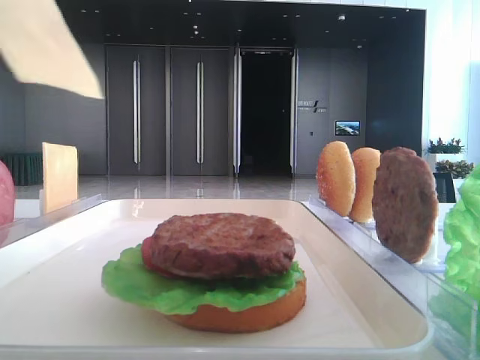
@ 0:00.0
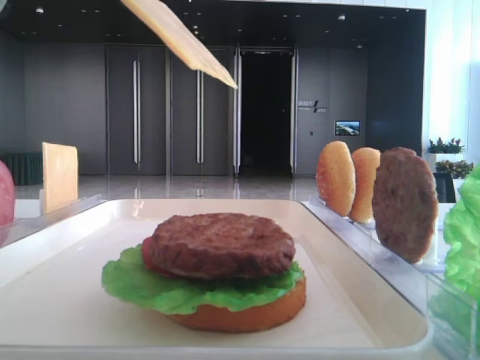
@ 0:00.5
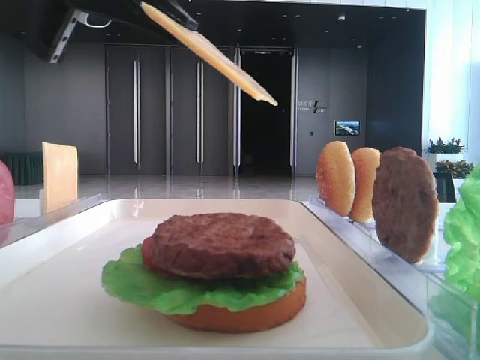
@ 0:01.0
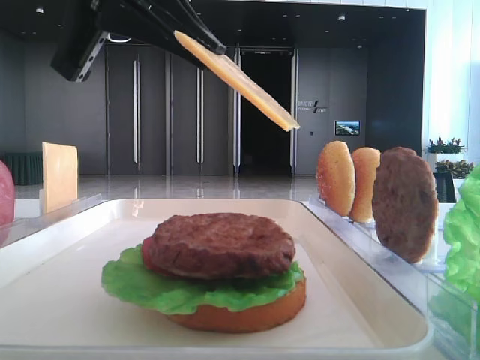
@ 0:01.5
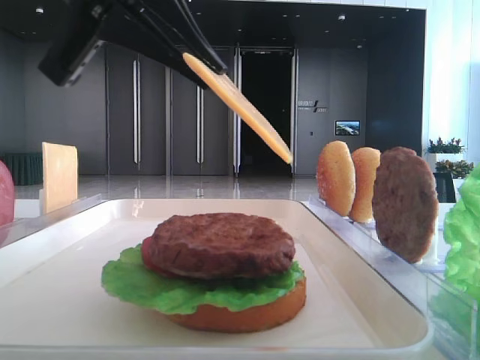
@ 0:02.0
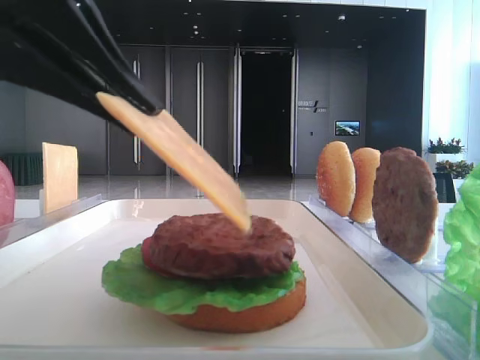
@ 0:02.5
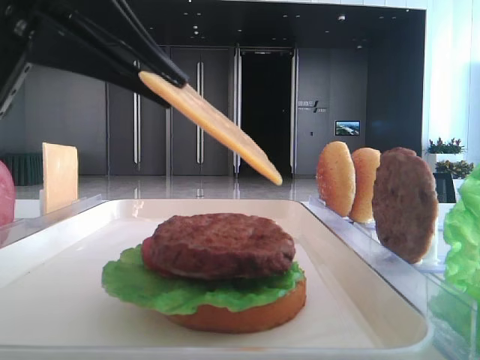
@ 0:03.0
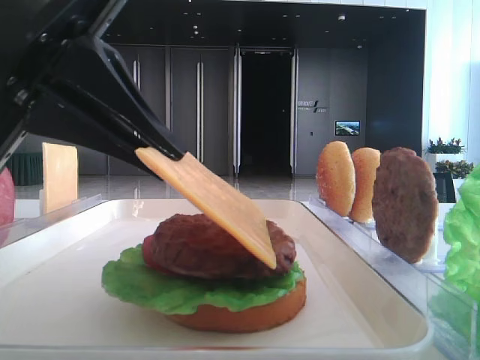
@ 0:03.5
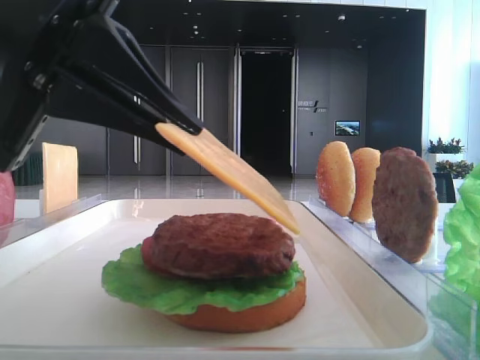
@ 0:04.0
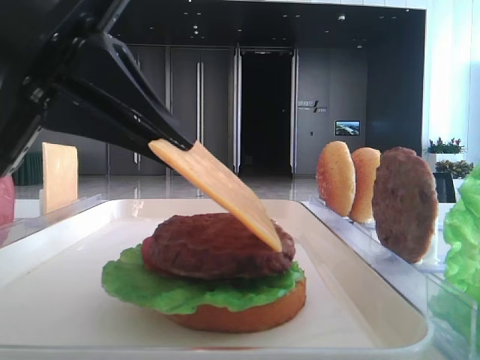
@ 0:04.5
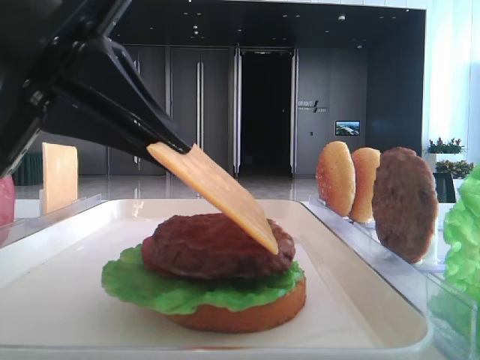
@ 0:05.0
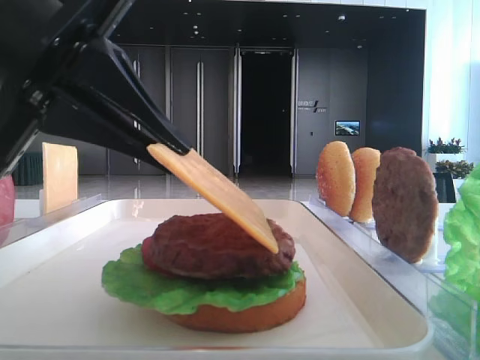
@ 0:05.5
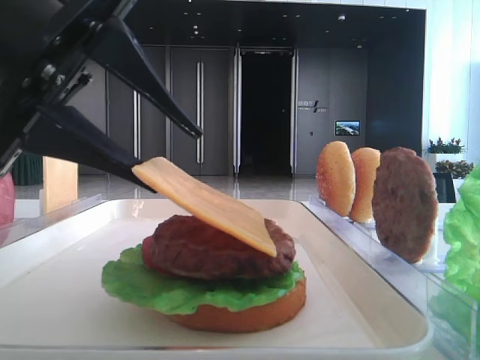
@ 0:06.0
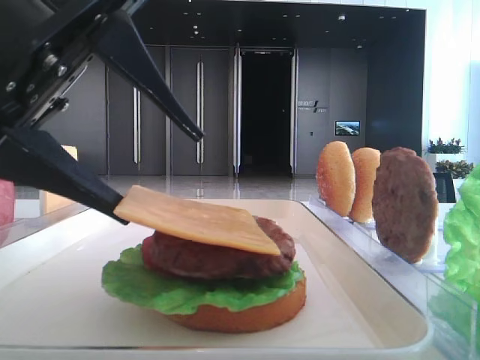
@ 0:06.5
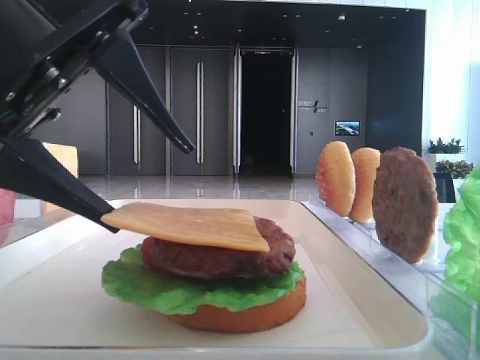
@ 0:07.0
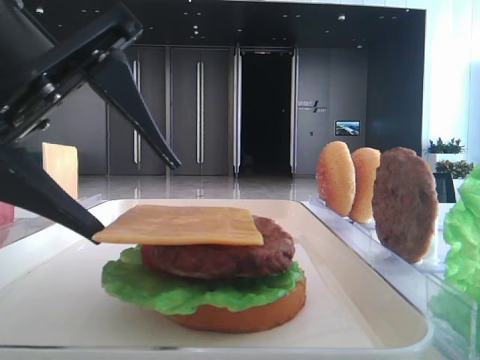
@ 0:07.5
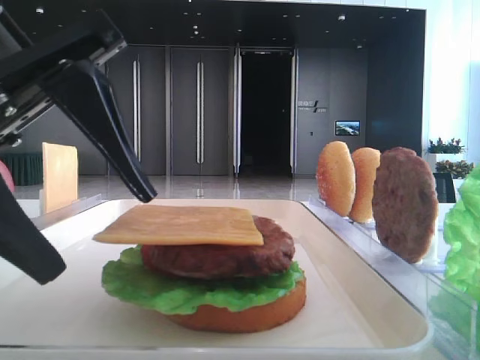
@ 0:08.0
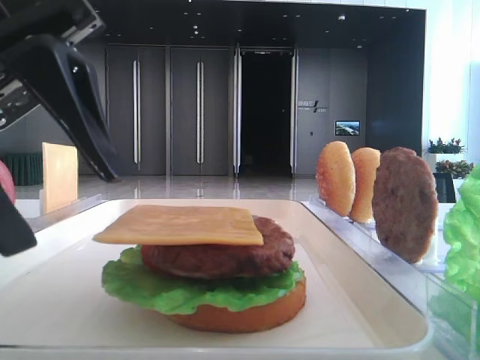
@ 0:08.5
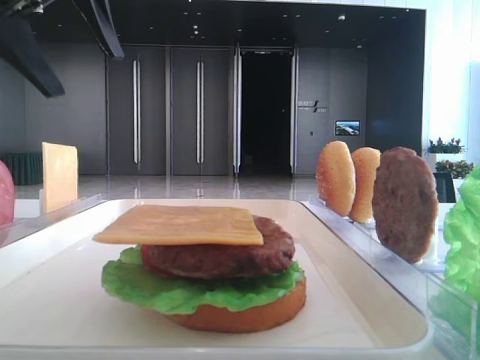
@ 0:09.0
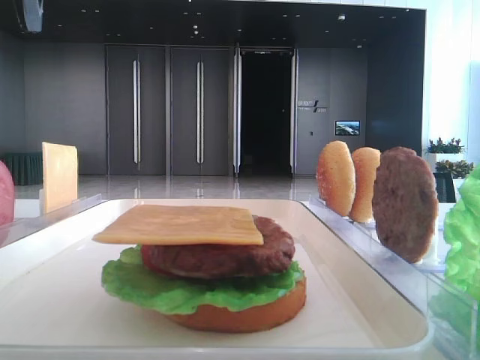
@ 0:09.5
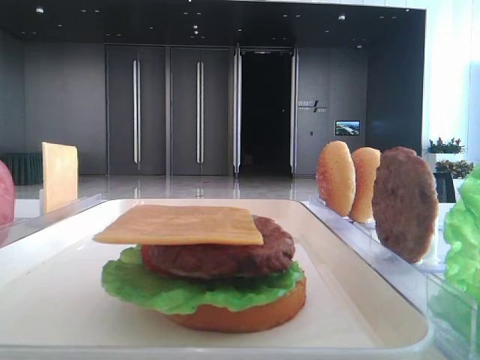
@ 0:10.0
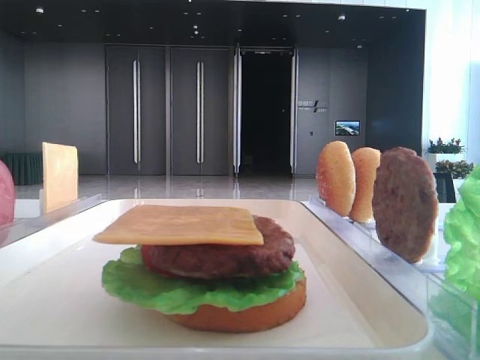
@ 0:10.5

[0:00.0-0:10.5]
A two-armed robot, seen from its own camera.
Step, 0:00.0 to 0:07.0: Place the cheese slice on the patty with the left hand.
0:00.0 to 0:02.0: The left gripper heads to the right and downward, covering about 10 cm.
0:02.0 to 0:04.0: The left gripper travels downward by approximately 5 cm.
0:04.0 to 0:06.5: The left gripper opens its fingers.
0:06.5 to 0:08.5: The grippers make only small movements.
0:08.5 to 0:10.5: The left gripper goes approximately 30 cm to the left, upward and forward.

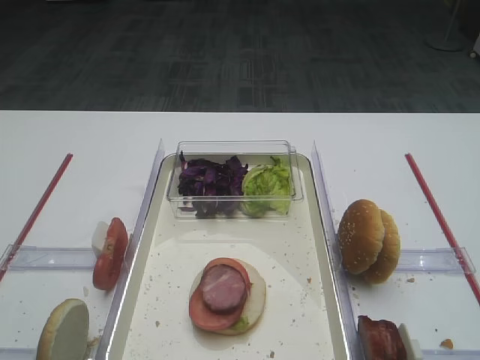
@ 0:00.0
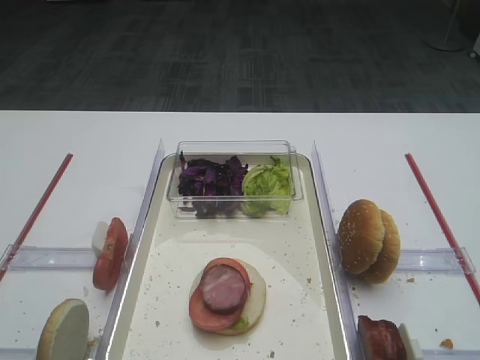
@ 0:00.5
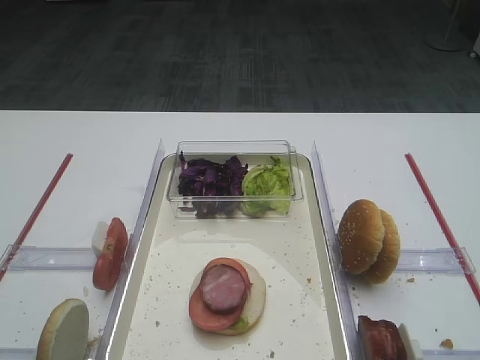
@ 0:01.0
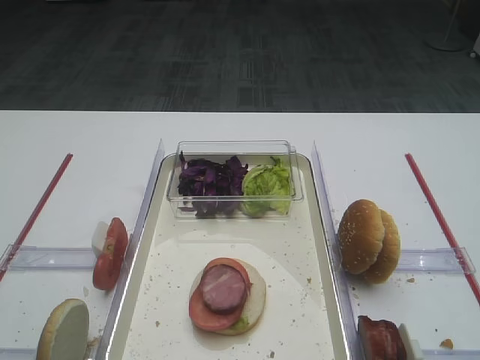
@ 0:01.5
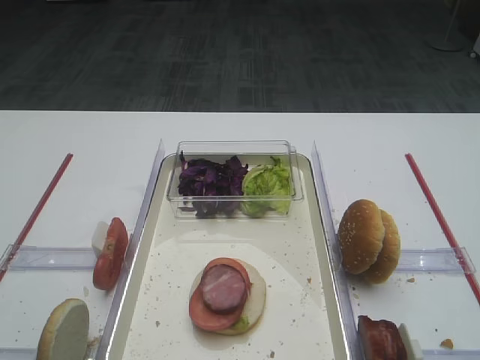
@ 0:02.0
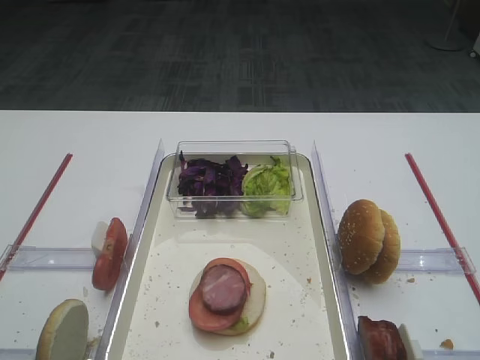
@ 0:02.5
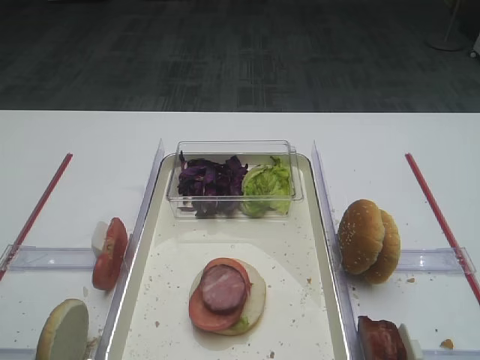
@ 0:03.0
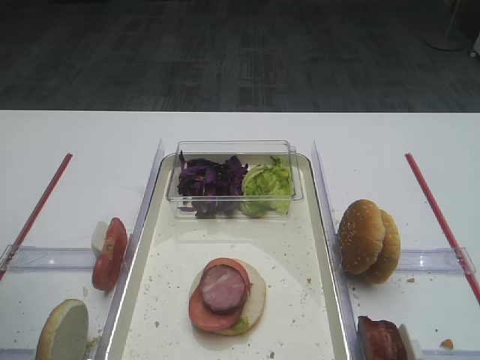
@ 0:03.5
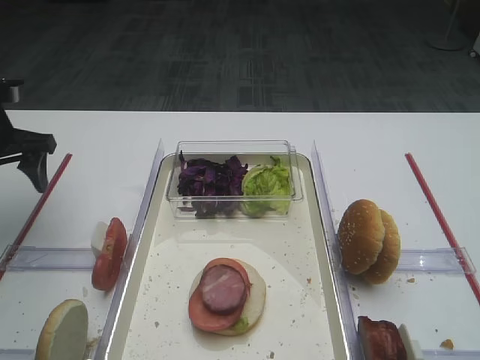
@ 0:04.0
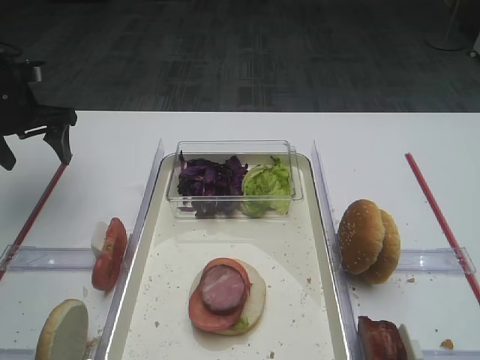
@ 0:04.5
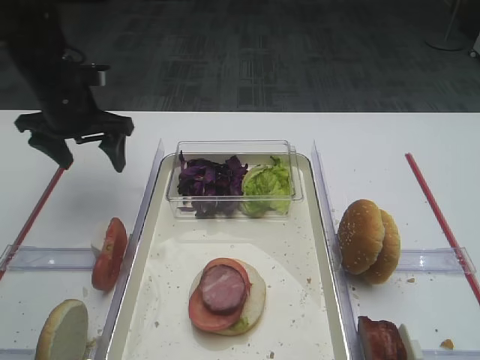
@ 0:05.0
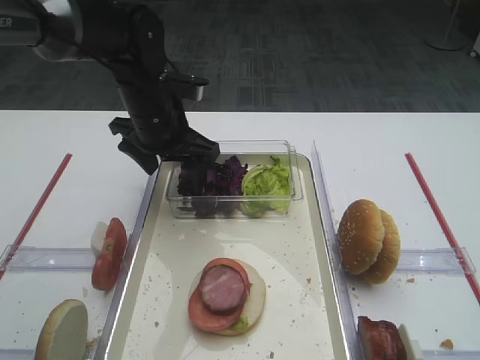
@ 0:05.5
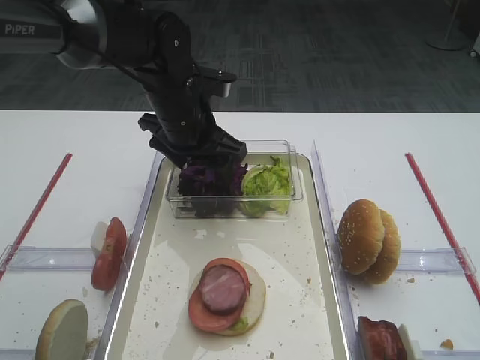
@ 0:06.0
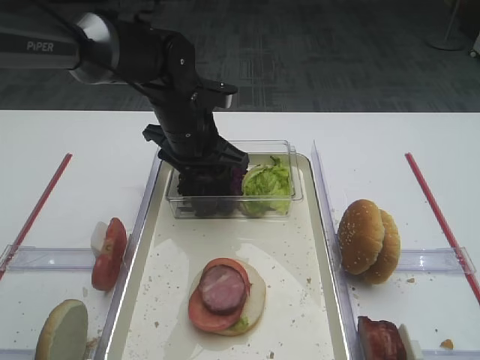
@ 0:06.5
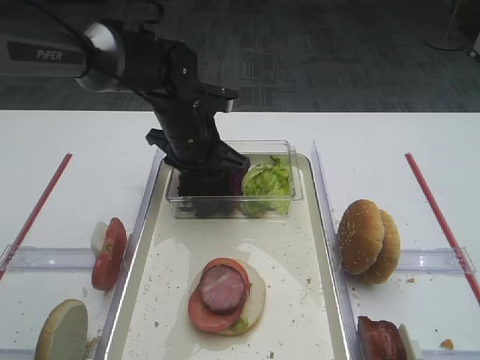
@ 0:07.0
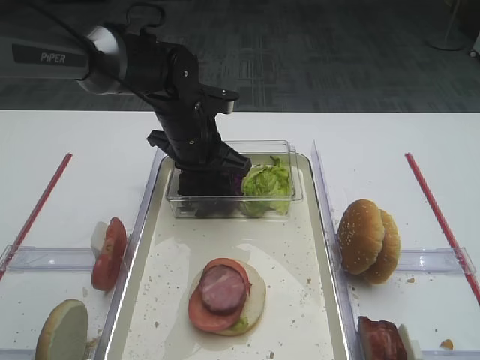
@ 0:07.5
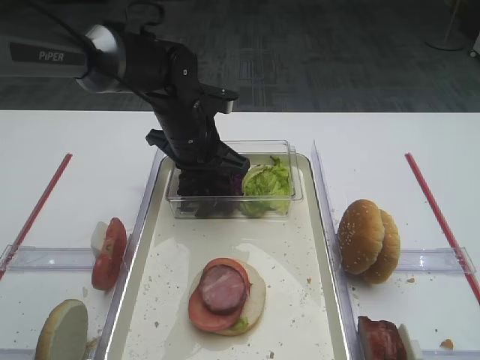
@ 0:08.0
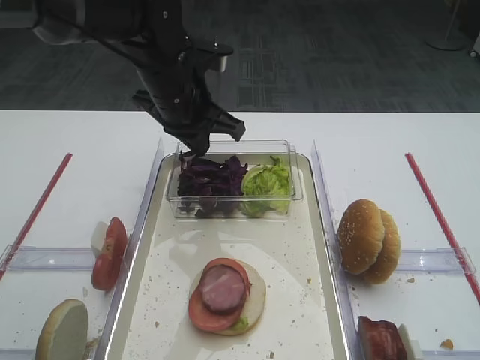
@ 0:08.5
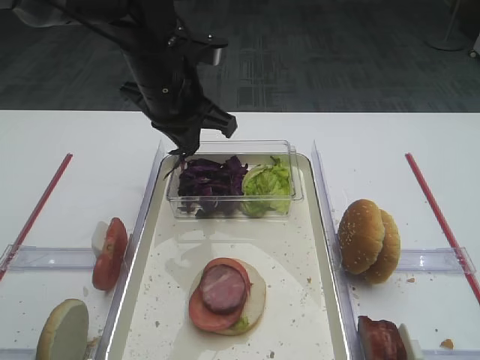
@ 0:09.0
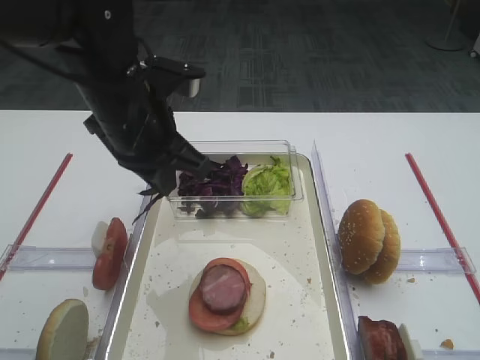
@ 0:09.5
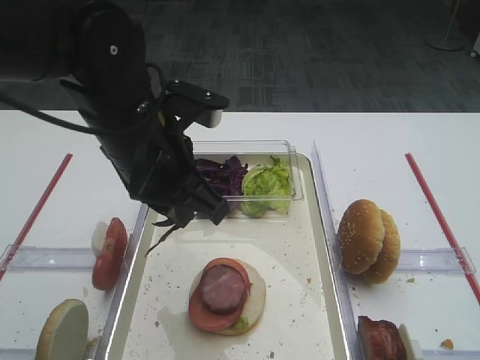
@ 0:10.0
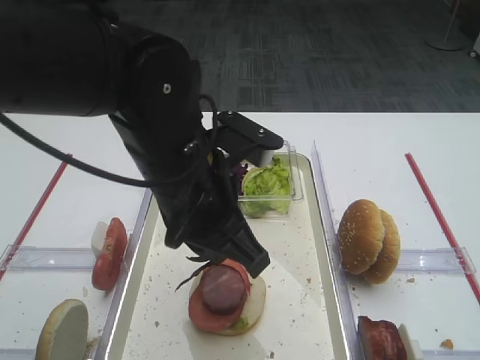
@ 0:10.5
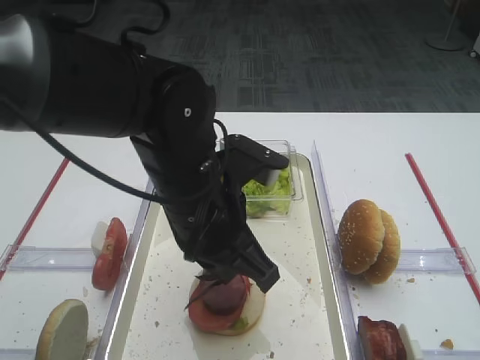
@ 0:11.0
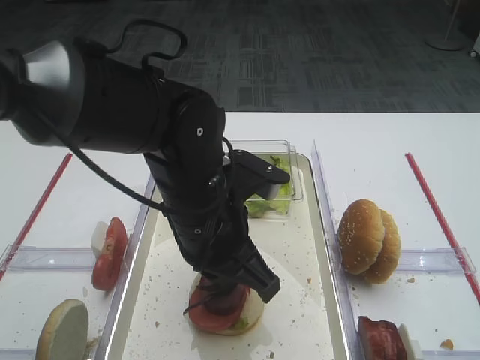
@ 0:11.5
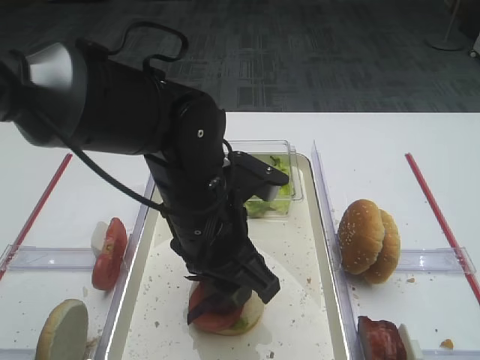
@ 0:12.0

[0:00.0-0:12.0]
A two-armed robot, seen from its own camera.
Step, 0:00.0 to 0:09.0: Pick up the purple cabbage with the left gripper.
0:02.0 to 0:04.0: The left gripper shifts approximately 35 cm forward.
0:04.0 to 0:06.0: The left gripper goes roughly 25 cm to the right.
0:06.0 to 0:08.0: The left gripper closes up.
0:08.0 to 0:10.0: The left gripper moves backward and upward, some 15 cm.
0:10.0 to 0:12.0: The left gripper moves to the right and downward, about 10 cm, and opens up.

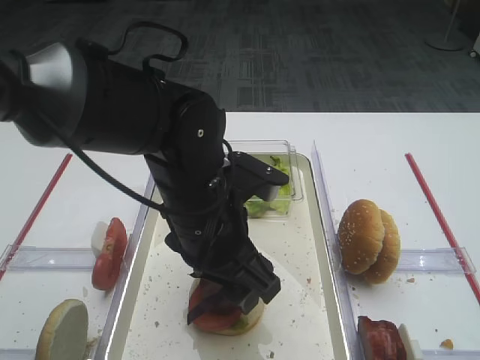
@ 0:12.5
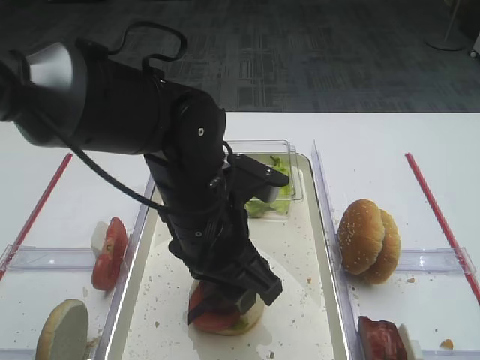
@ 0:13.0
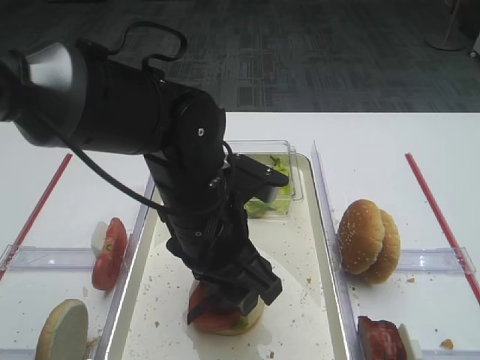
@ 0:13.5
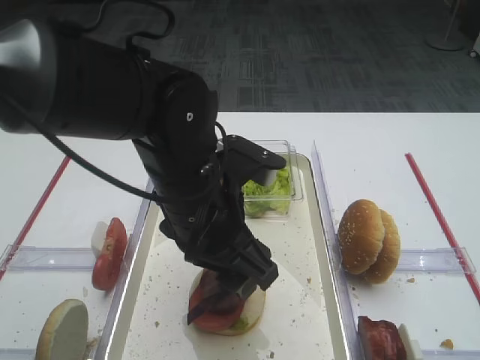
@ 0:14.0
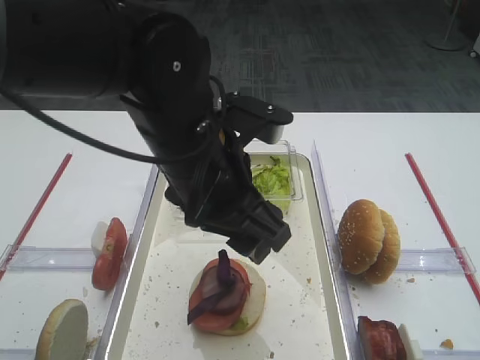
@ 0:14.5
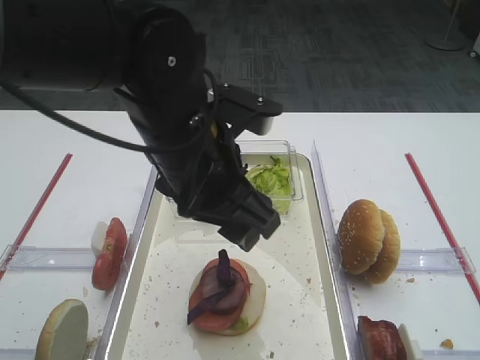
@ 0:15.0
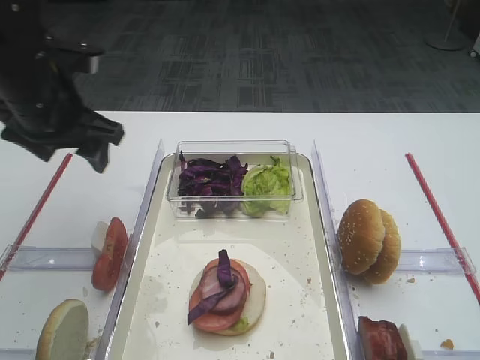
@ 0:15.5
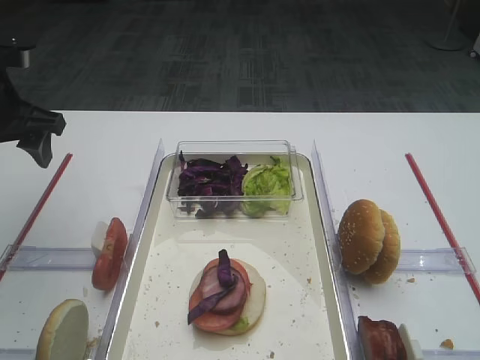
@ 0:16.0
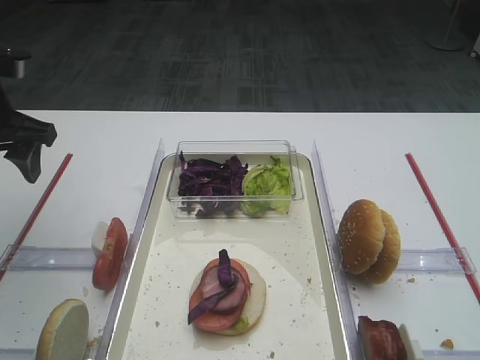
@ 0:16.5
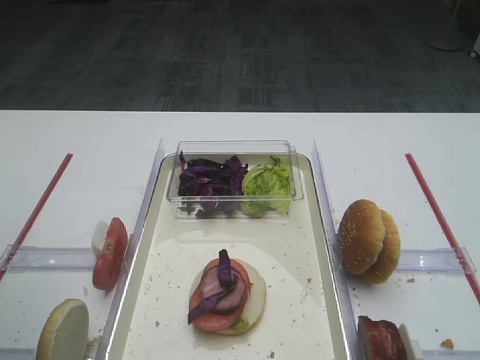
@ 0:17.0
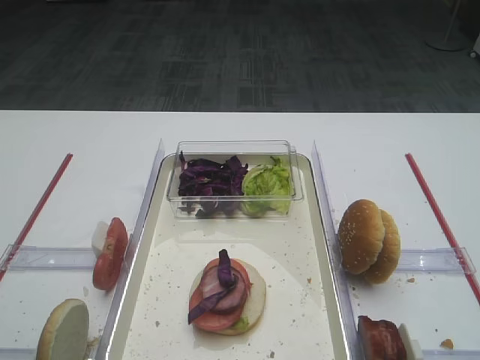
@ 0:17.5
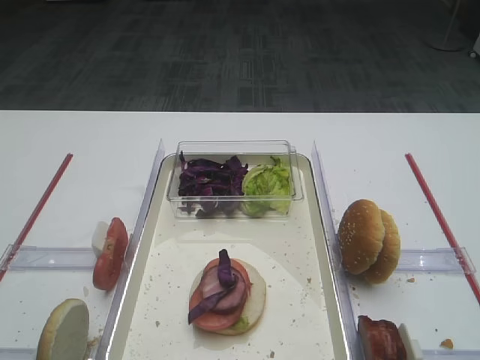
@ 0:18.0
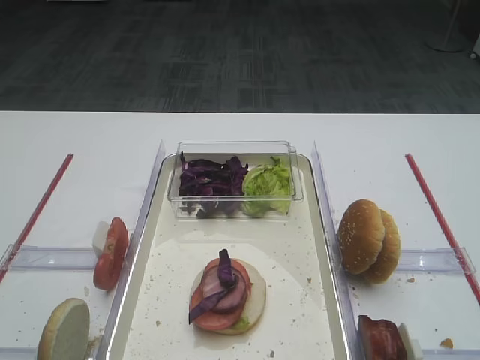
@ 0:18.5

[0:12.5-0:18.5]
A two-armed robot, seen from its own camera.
0:12.5 to 0:14.5: The left gripper travels upward by about 5 cm.
0:14.5 to 0:16.5: The left gripper goes roughly 25 cm to the left.
0:16.5 to 0:18.5: The left gripper goes roughly 35 cm backward.
